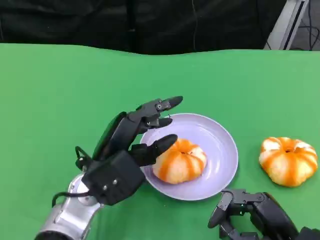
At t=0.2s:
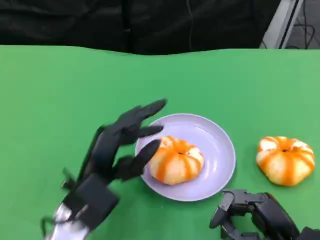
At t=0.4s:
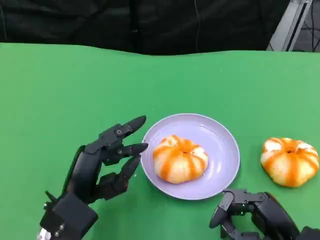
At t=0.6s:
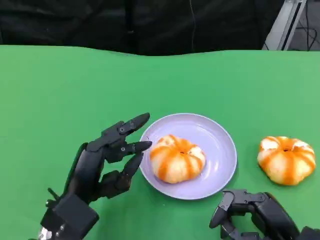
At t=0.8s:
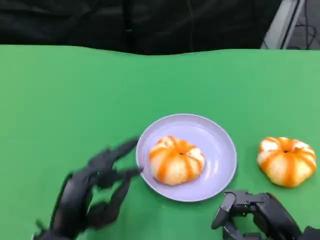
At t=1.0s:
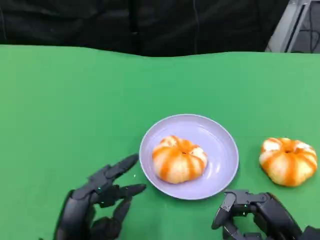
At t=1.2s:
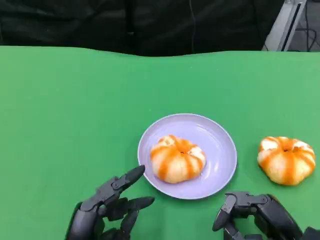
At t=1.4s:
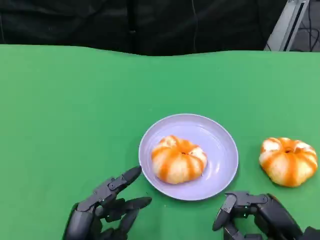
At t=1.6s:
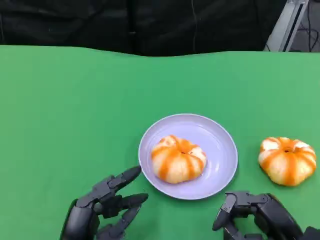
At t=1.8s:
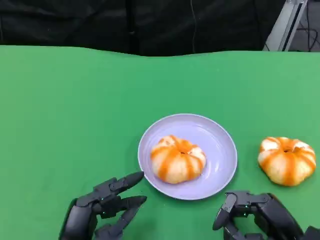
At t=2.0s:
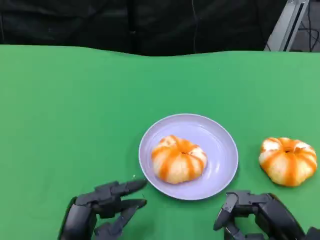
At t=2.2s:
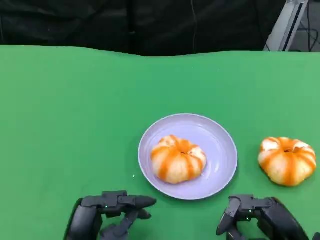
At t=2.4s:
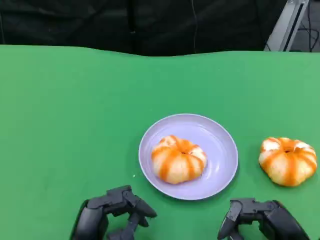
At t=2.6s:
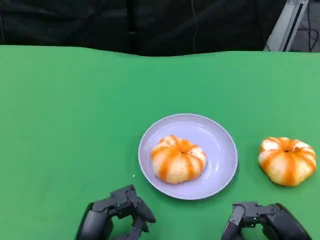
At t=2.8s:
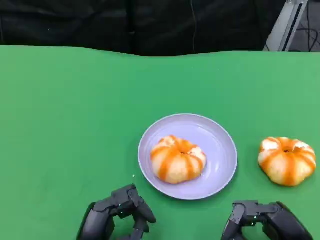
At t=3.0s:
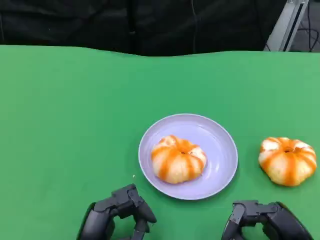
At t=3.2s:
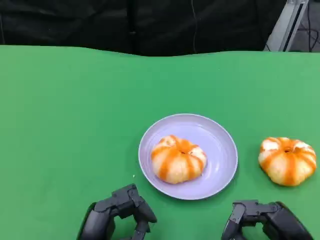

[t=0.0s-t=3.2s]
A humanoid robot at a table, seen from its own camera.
Task of the whole recording: Grasp the bread from the table and place it into the plate.
t=0.0s to t=1.6s: The left hand goes about 15 cm backward and downward.
t=1.6s to t=3.2s: The hands move only a little.

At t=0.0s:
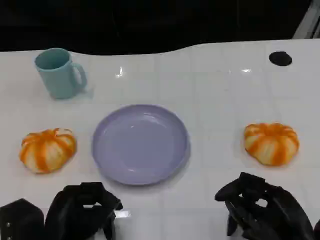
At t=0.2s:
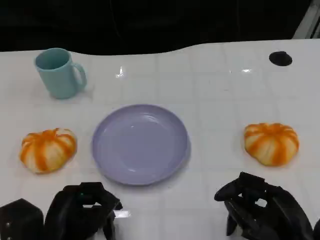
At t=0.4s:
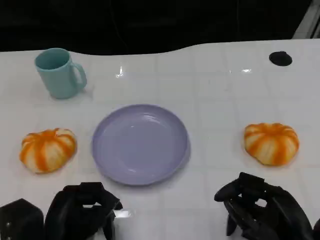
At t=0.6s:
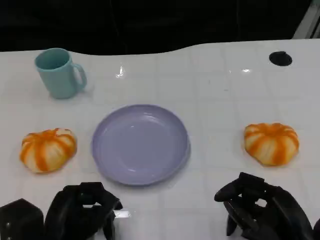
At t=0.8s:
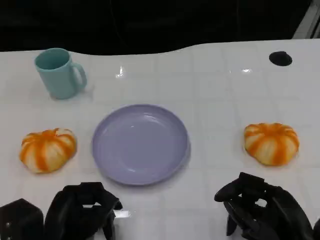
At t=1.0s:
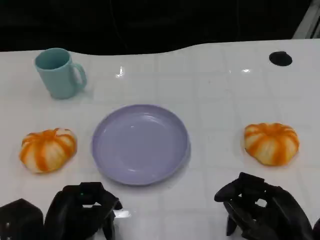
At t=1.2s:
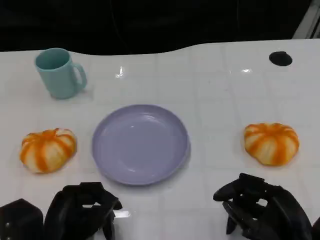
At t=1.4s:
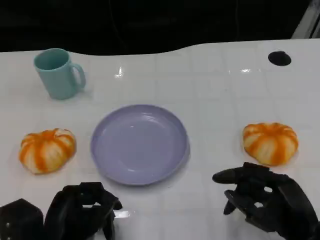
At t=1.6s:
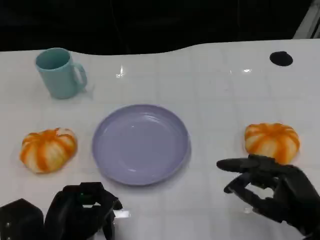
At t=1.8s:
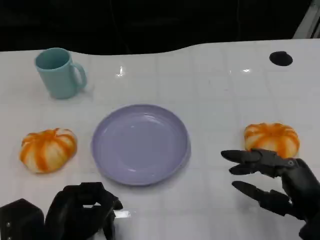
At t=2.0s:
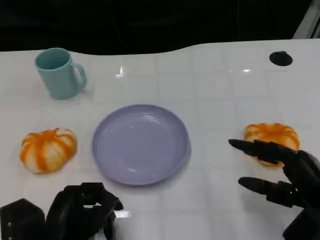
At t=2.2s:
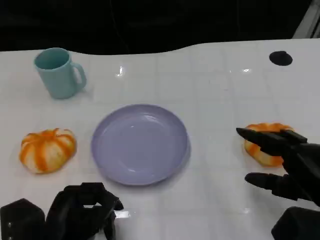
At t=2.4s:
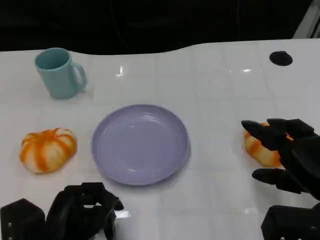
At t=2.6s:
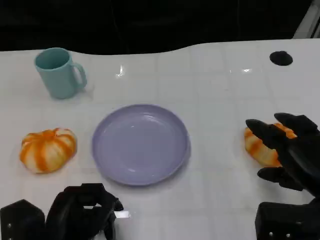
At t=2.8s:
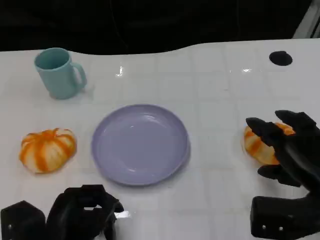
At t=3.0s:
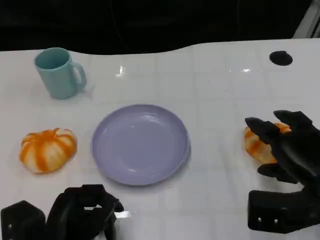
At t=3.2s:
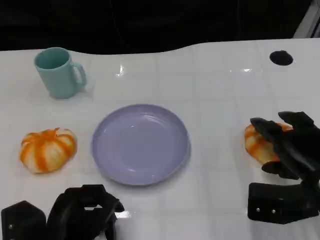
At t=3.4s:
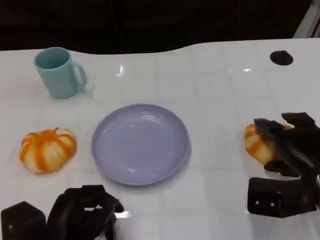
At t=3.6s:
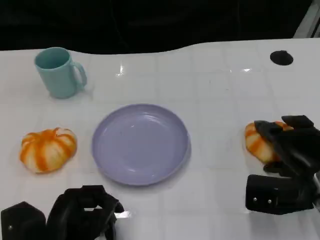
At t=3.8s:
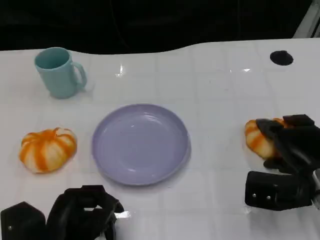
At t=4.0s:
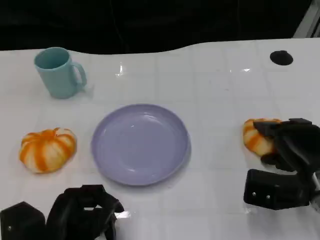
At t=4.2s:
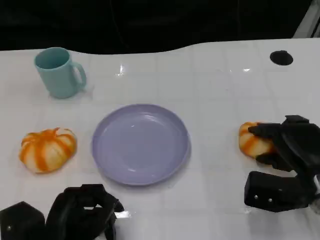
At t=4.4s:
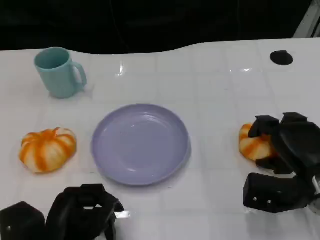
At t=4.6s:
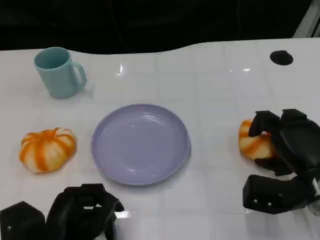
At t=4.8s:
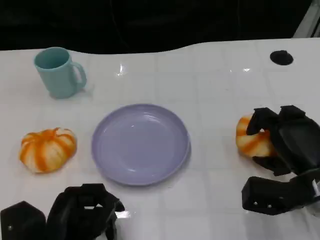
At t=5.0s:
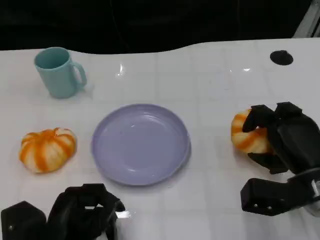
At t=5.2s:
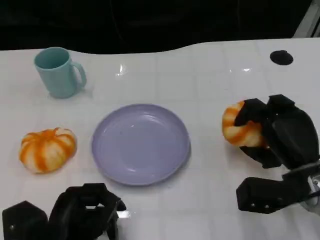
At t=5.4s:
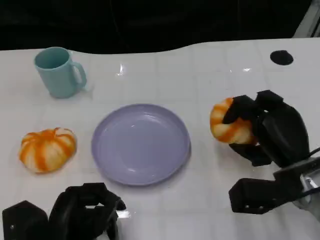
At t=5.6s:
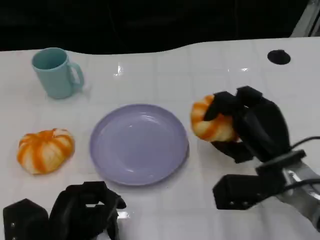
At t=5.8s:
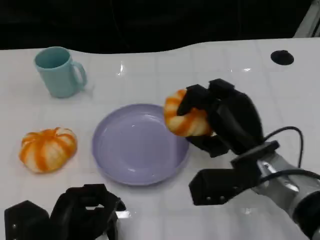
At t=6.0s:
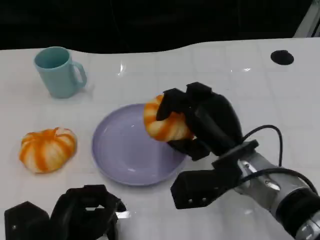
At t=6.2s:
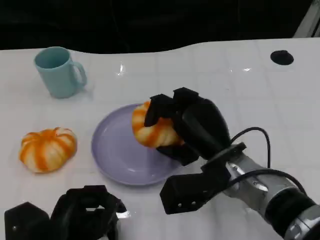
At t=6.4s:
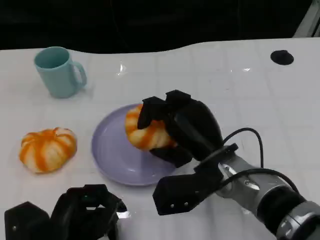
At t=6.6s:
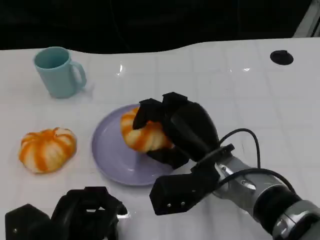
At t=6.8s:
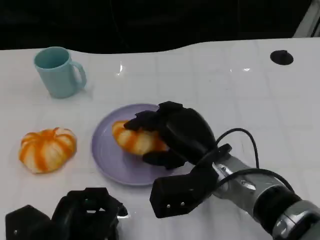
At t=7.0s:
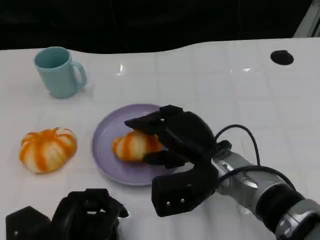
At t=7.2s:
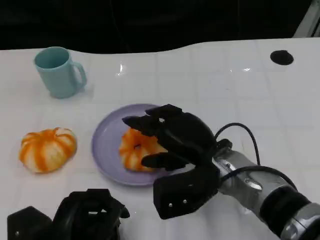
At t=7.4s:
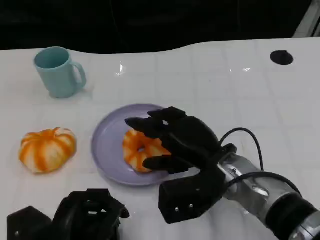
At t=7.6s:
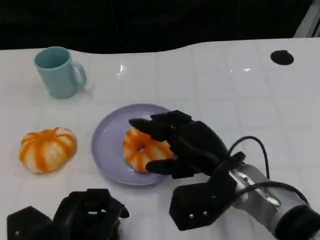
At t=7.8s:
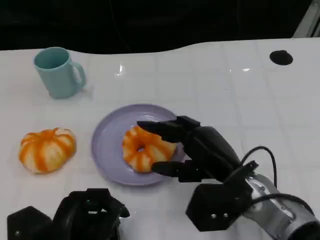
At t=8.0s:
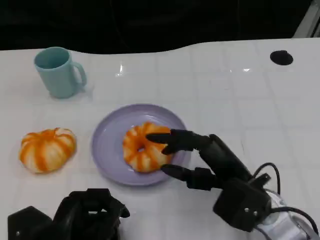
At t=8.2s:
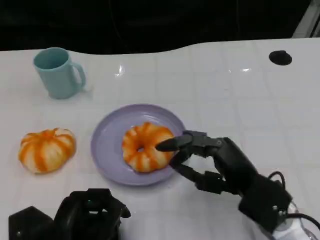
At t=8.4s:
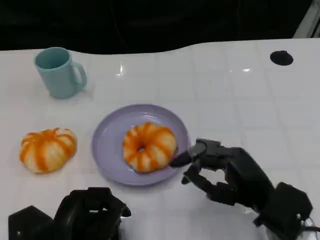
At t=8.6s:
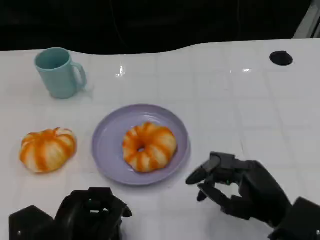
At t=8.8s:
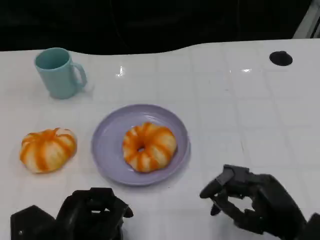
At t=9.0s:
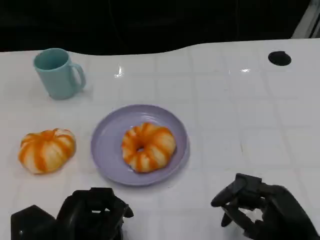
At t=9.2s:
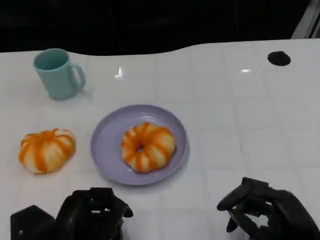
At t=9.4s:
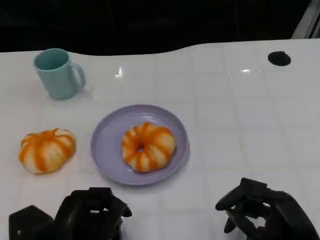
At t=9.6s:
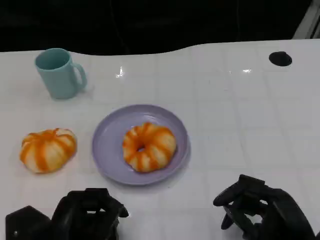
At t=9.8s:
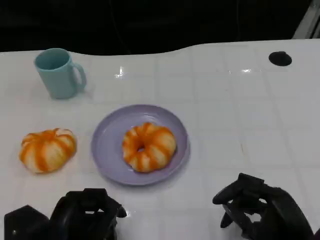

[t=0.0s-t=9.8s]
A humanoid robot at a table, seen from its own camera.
Task of the whole recording: Grasp the bread from the table and place it into the plate.
t=0.0s to t=1.4s: The hands move only a little.
t=1.4s to t=2.8s: The right hand travels forward by roughly 5 cm.
t=2.8s to t=4.2s: The right hand is displaced downward by some 5 cm.
t=4.2s to t=5.6s: The right hand heads to the left, covering some 5 cm.
t=5.6s to t=7.0s: The right hand shifts some 10 cm to the left.
t=7.0s to t=8.4s: The right hand moves to the right and backward, some 10 cm.
t=8.4s to t=9.8s: The right hand shifts roughly 5 cm backward.

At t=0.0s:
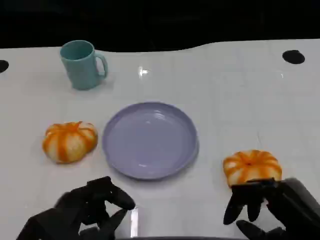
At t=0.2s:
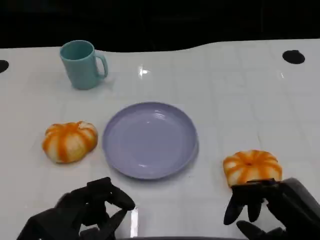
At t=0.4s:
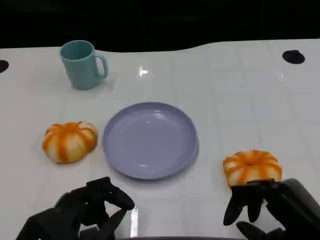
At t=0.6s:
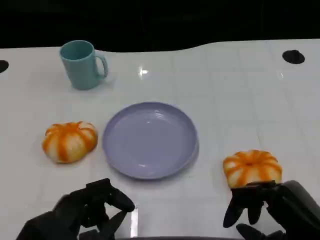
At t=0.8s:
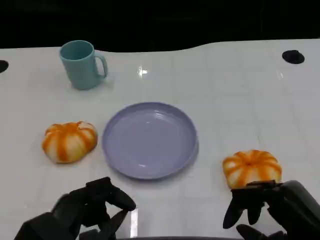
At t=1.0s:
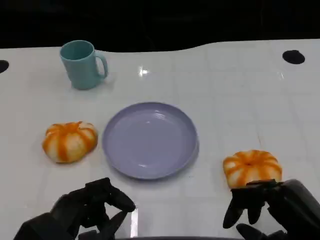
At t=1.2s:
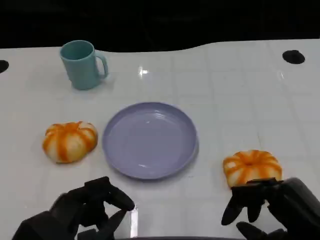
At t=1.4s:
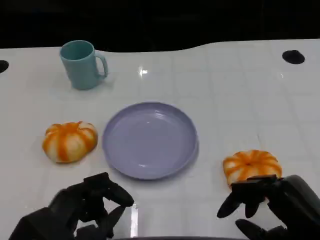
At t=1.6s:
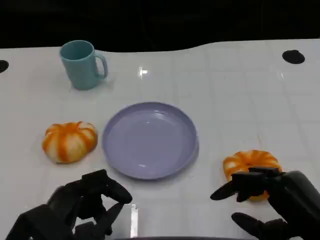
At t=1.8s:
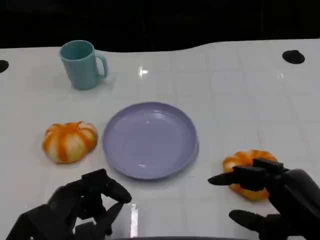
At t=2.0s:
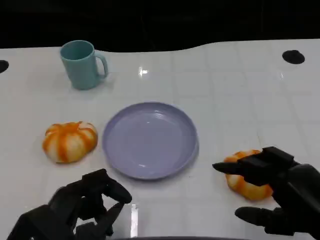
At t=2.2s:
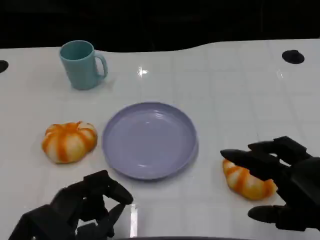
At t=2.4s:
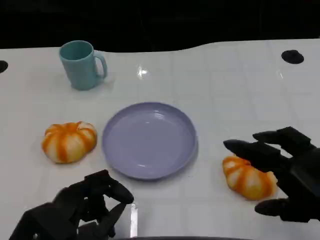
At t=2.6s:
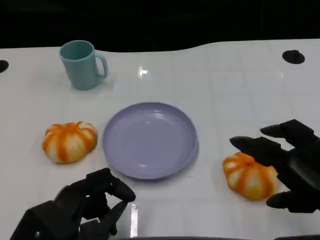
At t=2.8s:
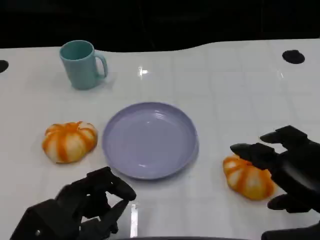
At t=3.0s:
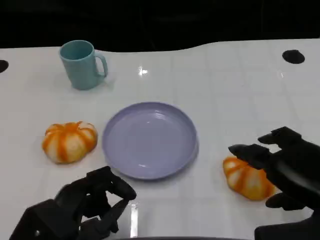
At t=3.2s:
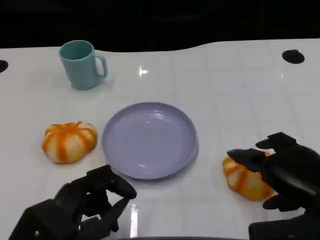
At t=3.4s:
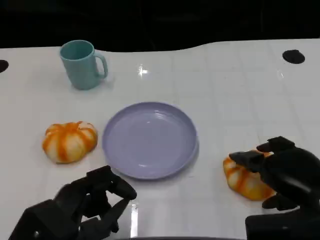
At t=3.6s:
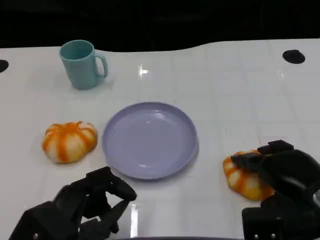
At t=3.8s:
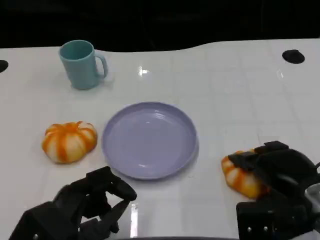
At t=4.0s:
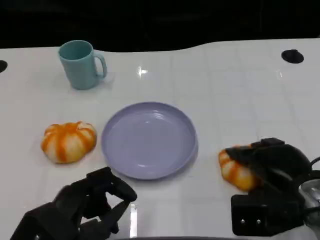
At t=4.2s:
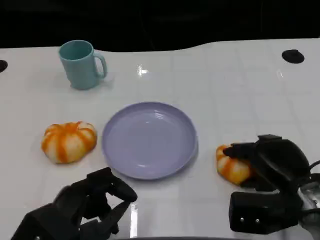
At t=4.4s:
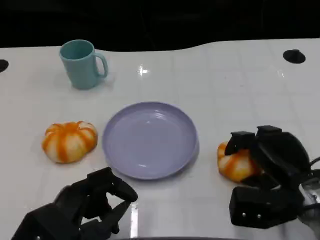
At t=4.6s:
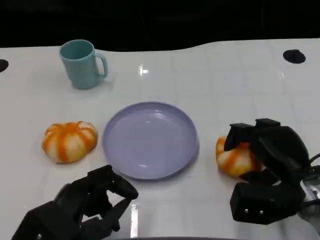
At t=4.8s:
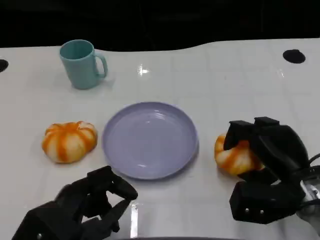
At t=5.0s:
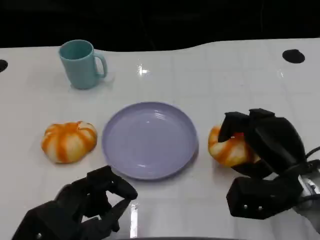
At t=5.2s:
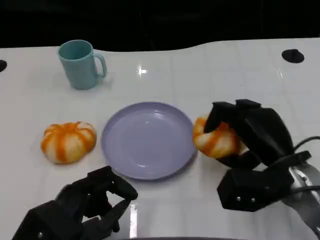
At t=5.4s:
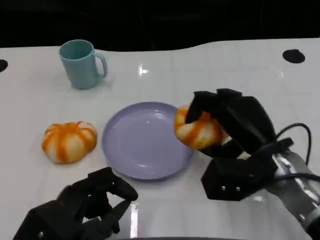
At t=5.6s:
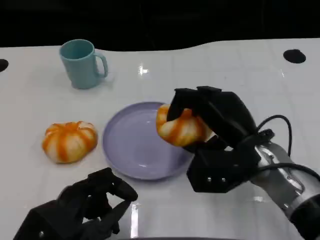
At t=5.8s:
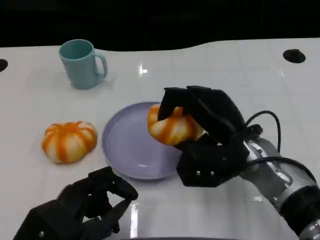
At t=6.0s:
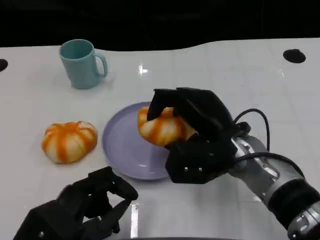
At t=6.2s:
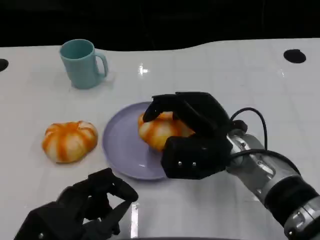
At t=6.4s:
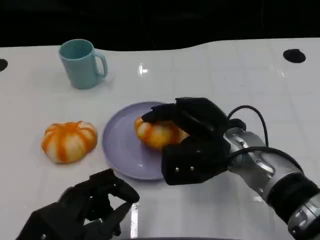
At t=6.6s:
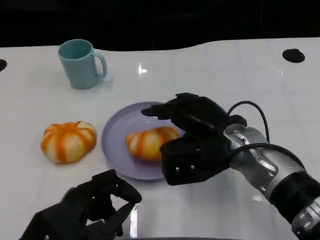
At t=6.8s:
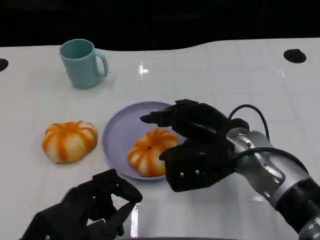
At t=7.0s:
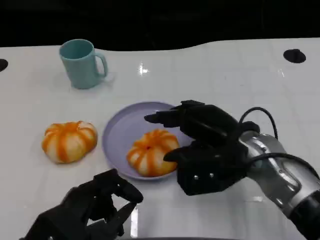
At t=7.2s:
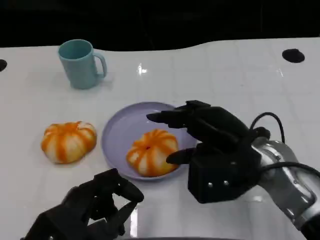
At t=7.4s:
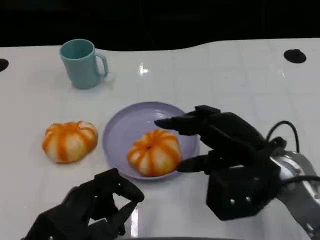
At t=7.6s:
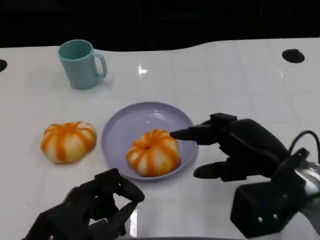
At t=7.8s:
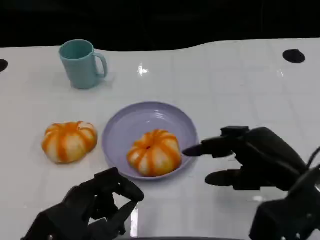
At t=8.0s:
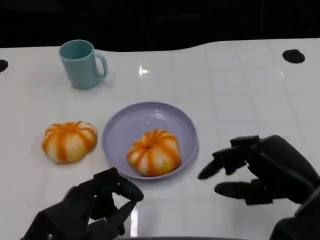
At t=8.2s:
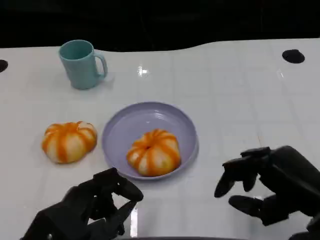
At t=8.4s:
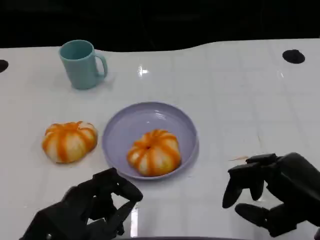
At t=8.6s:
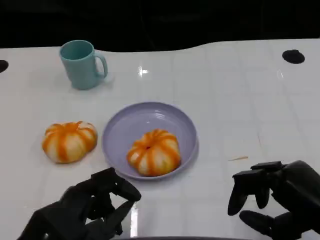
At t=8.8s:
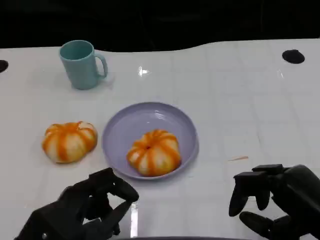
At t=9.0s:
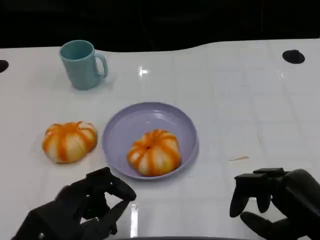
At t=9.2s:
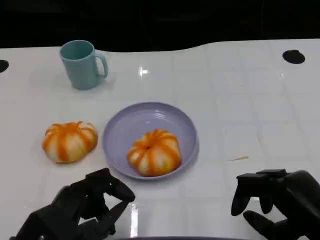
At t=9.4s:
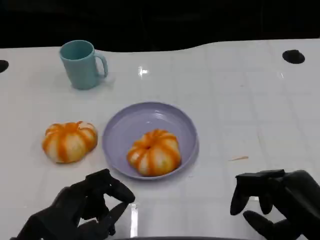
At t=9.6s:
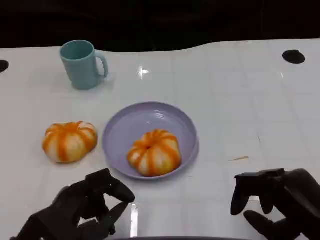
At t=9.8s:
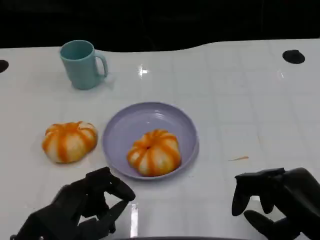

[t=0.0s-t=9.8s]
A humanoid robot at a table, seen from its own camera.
Task of the whole recording: Grasp the bread from the table and place it into the plate.
t=0.0s to t=1.4s: The hands move only a little.
t=1.4s to t=2.8s: The right hand shifts by approximately 5 cm.
t=2.8s to t=4.2s: The right hand travels downward and forward by some 10 cm.
t=4.2s to t=5.6s: The right hand heads to the left and upward, covering roughly 10 cm.
t=7.0s to t=8.4s: The right hand shifts approximately 15 cm to the right and backward.
t=8.4s to t=9.8s: The hands stay close to where they were, moving slightly.
